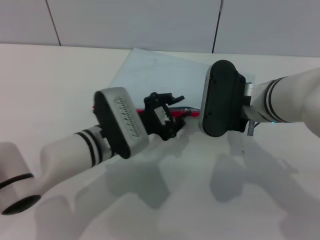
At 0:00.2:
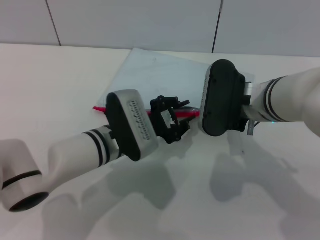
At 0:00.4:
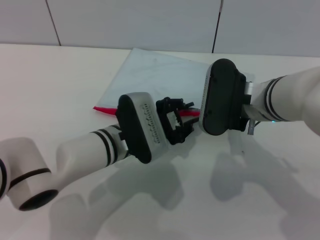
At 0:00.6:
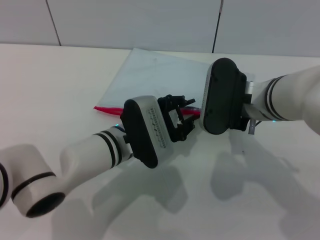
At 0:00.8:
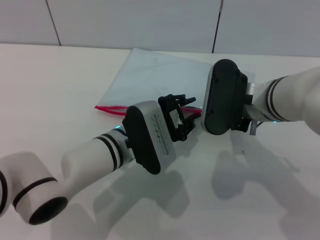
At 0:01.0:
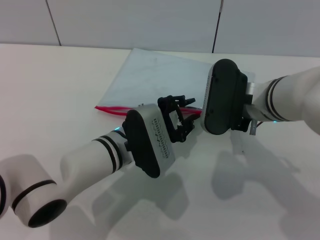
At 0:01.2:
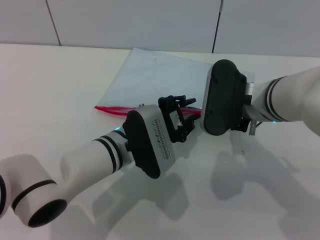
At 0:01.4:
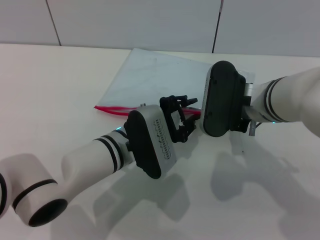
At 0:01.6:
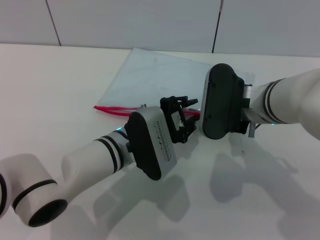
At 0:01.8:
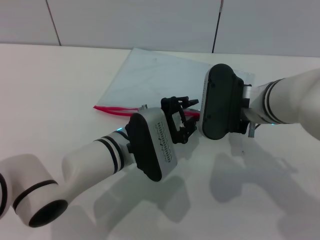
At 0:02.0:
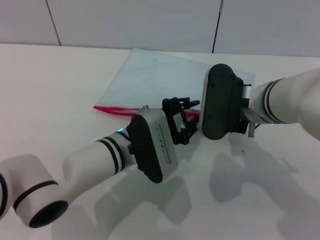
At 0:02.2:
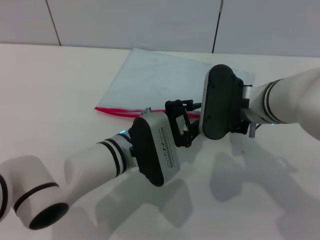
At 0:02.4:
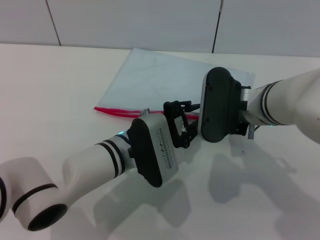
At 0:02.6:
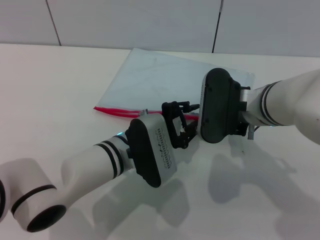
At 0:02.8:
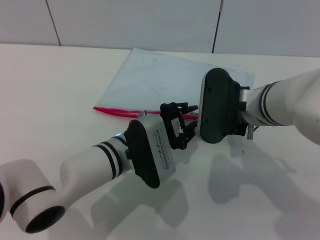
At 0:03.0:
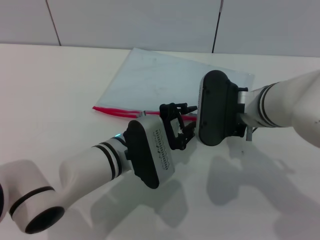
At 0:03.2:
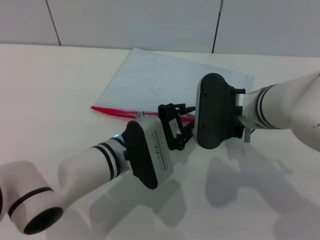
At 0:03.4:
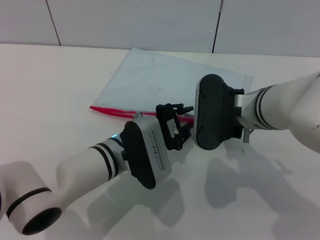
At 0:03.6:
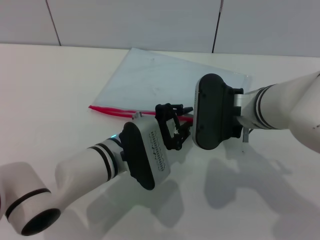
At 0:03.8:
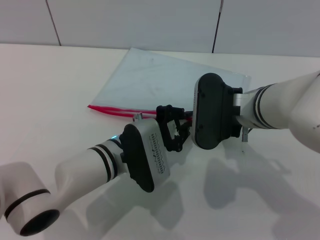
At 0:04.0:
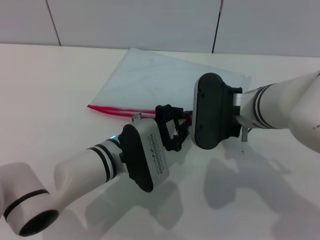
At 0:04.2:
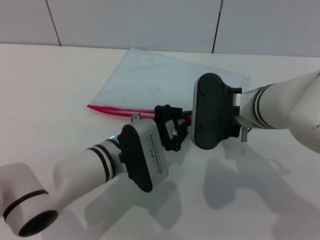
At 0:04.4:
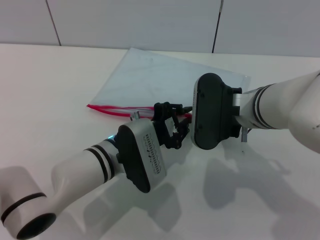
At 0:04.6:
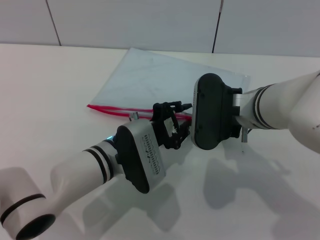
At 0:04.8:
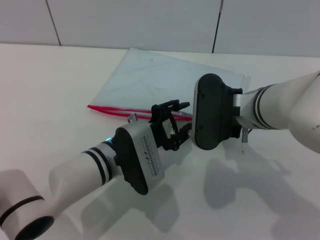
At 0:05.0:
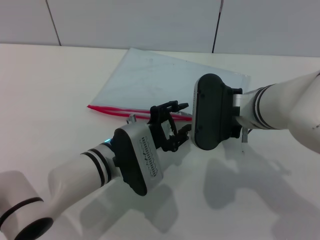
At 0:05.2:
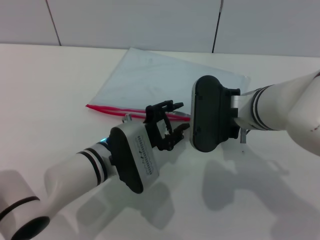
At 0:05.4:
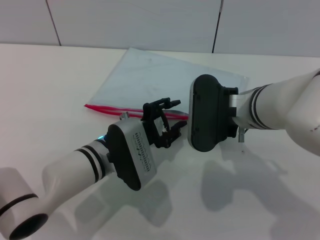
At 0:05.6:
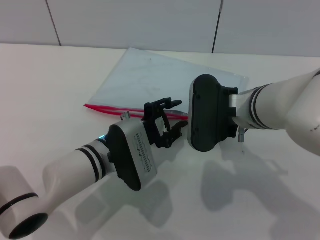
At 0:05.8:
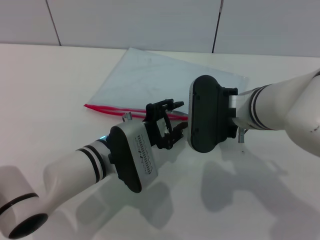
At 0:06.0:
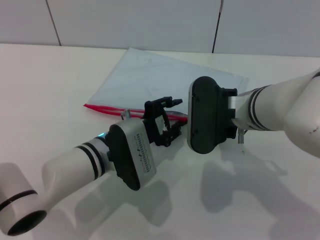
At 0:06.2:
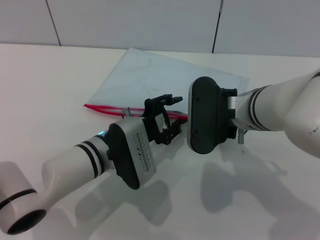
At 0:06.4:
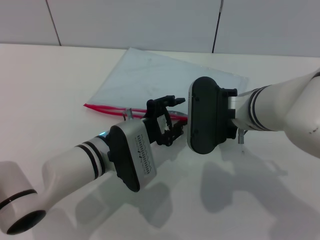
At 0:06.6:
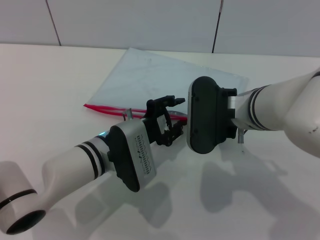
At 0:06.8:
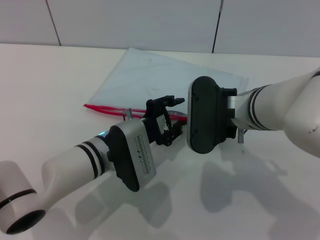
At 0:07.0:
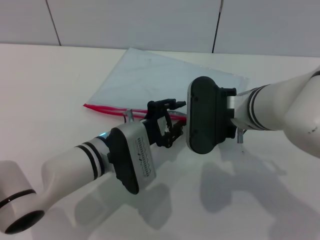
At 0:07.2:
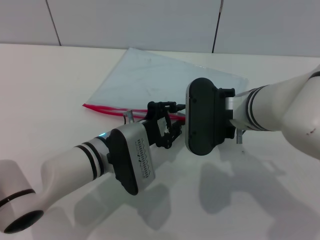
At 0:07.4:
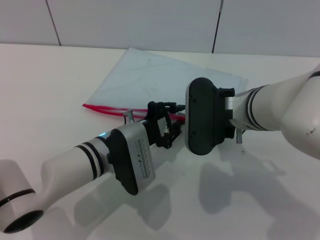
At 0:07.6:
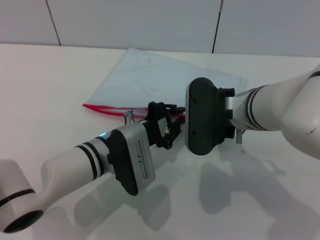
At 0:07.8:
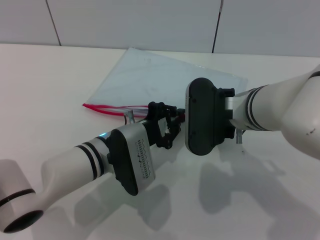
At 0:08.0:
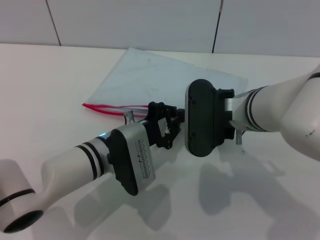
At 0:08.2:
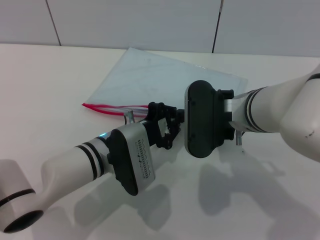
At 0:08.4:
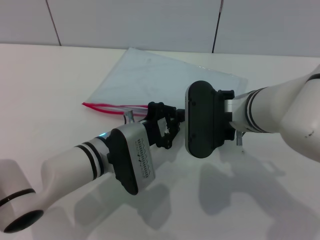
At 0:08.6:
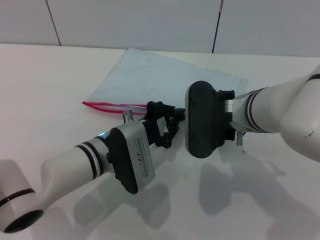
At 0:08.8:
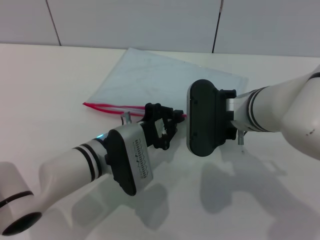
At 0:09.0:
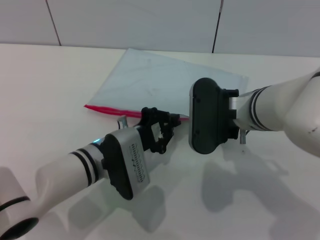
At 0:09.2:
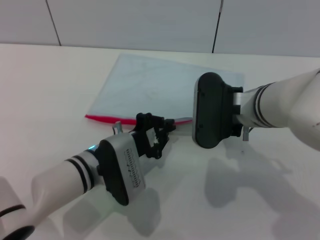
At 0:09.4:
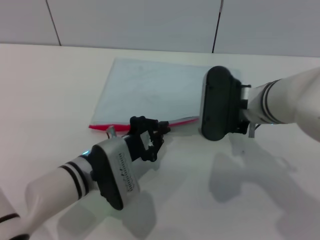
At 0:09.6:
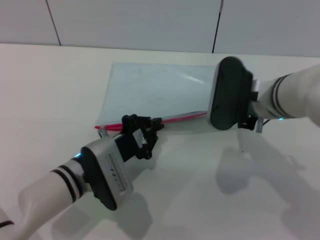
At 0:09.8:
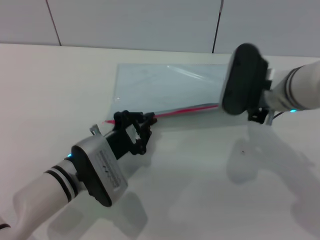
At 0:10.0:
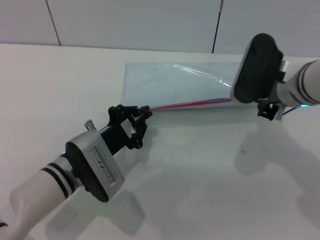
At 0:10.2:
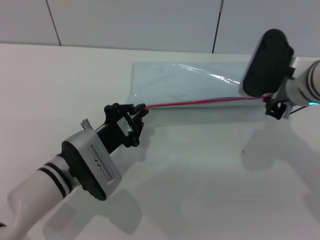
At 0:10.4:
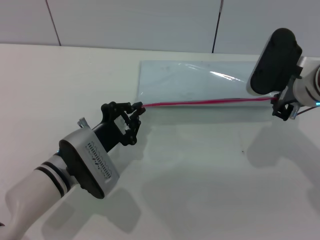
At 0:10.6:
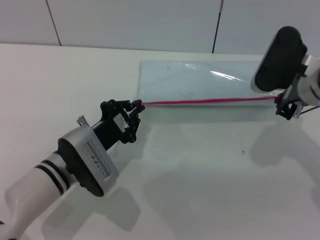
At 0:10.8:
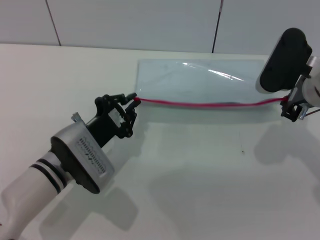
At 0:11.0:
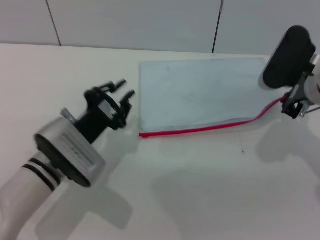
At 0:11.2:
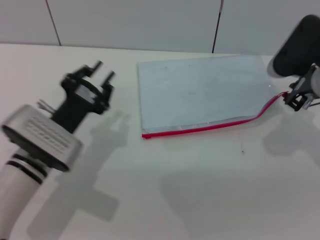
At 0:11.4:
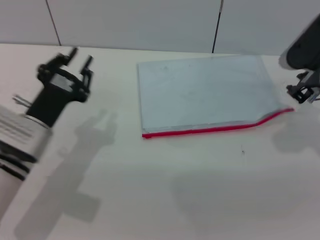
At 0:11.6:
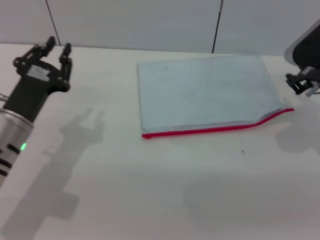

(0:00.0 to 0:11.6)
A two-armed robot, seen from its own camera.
Step, 0:00.0 - 0:11.0: Pulling up the zipper on the transparent plastic bag with the left gripper to close it.
0:00.0 - 0:01.4: There are only small adjustments of the grippers.
0:01.4 - 0:02.8: Both grippers stay about where they are.
0:02.8 - 0:04.4: The left gripper closes its fingers.
0:04.4 - 0:05.8: The left gripper opens up.
0:05.8 - 0:07.2: The grippers move only a little.
0:07.2 - 0:08.8: The left gripper closes its fingers.
0:08.8 - 0:10.2: The left gripper ends up some 5 cm from where it was; the right gripper is displaced to the right by approximately 10 cm.
0:10.2 - 0:11.6: The right gripper heads to the right, covering approximately 5 cm, and opens up; the left gripper moves to the left, approximately 10 cm, and opens.

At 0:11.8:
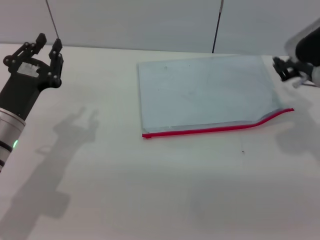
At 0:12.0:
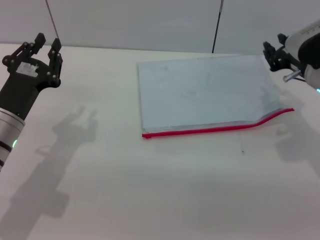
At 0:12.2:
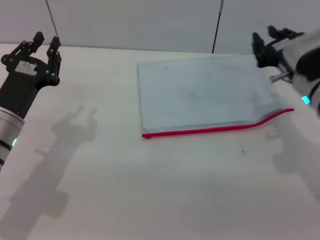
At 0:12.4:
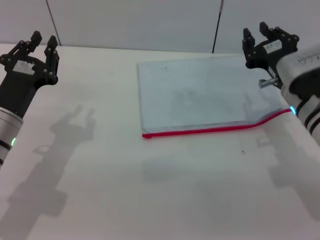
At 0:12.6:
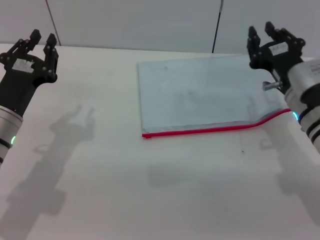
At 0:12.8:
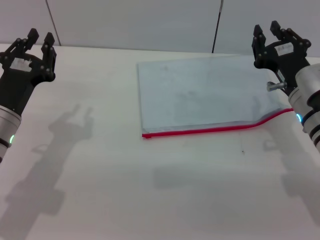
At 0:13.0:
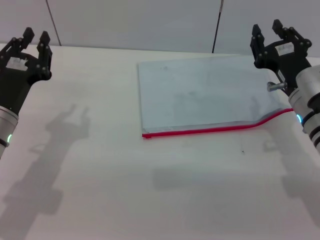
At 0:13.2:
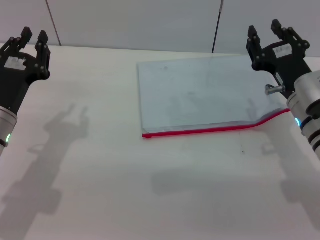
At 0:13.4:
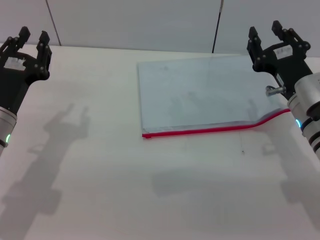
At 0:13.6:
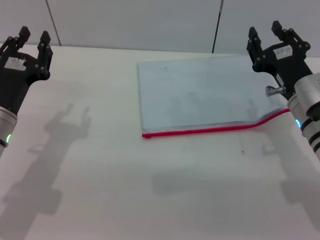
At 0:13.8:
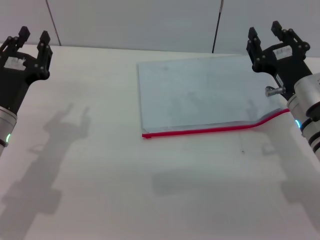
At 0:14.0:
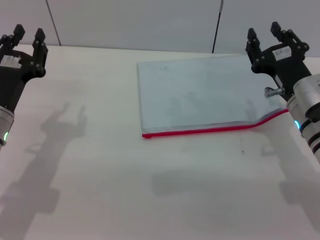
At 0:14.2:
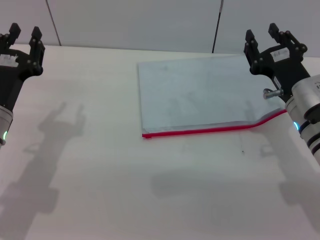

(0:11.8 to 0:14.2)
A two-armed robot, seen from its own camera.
0:11.8 - 0:13.0: The right gripper heads backward, covering about 5 cm.
0:13.0 - 0:14.2: Both grippers stay about where they are.
